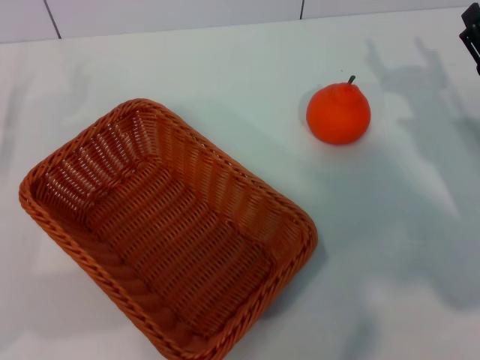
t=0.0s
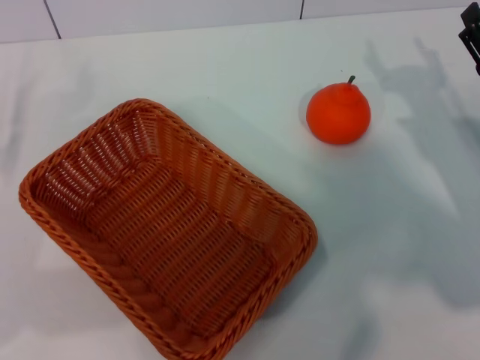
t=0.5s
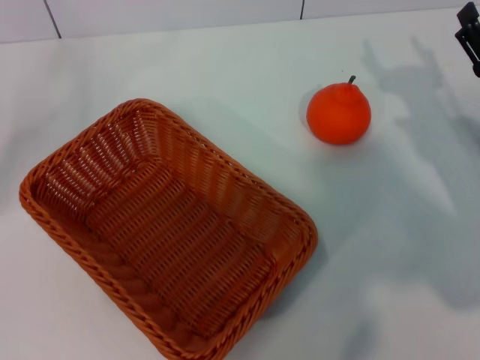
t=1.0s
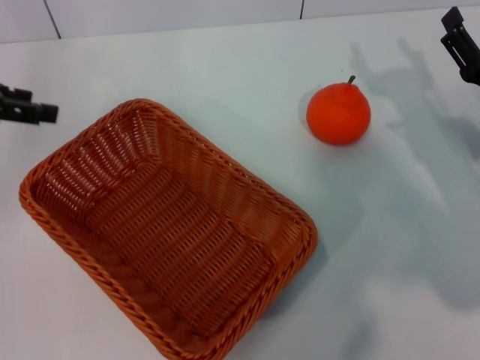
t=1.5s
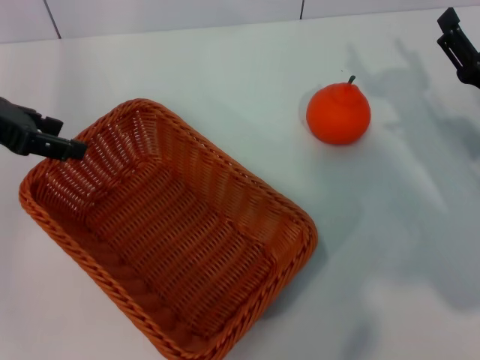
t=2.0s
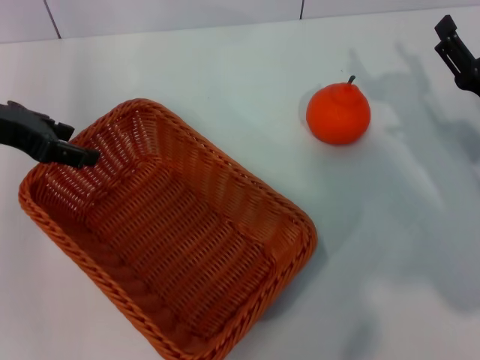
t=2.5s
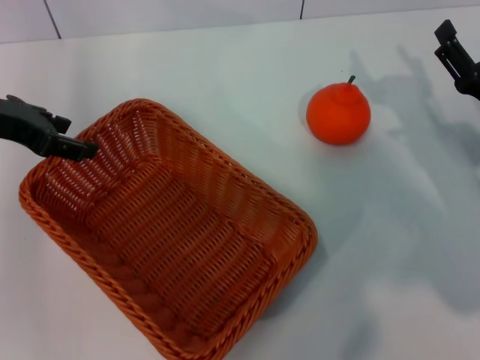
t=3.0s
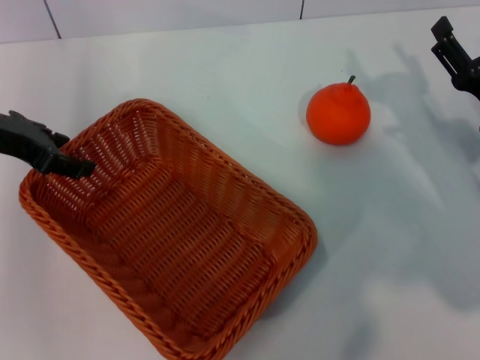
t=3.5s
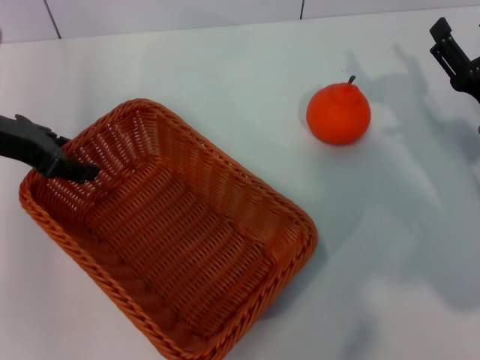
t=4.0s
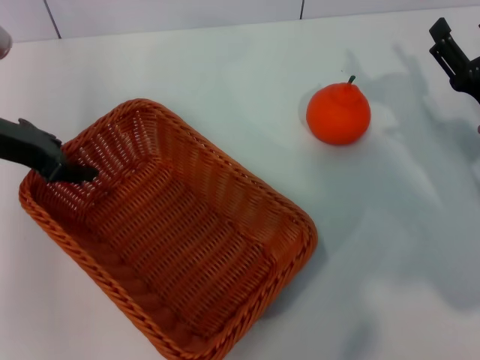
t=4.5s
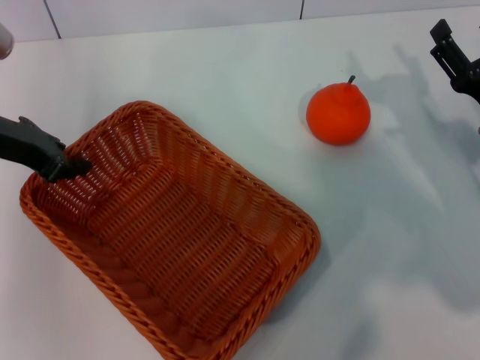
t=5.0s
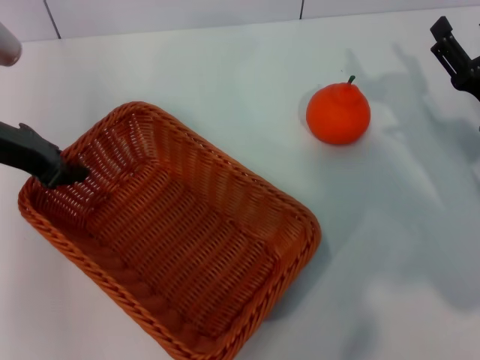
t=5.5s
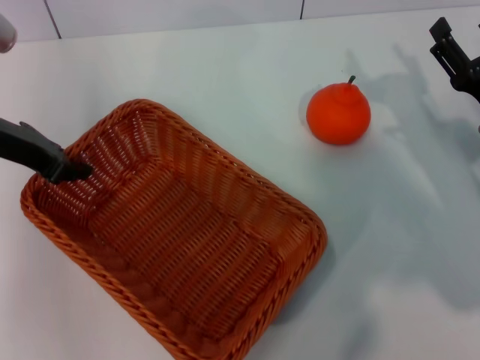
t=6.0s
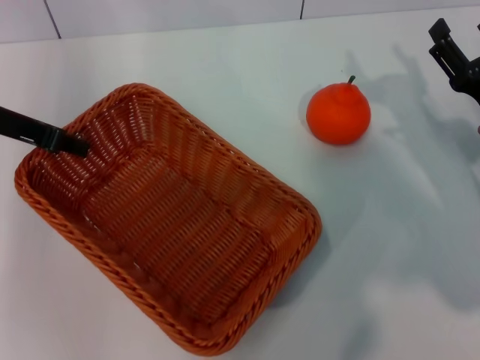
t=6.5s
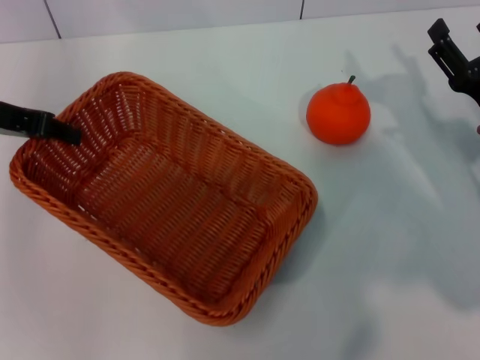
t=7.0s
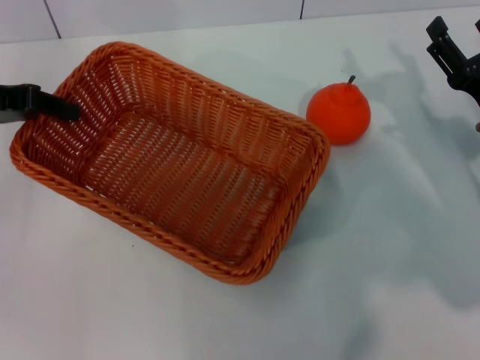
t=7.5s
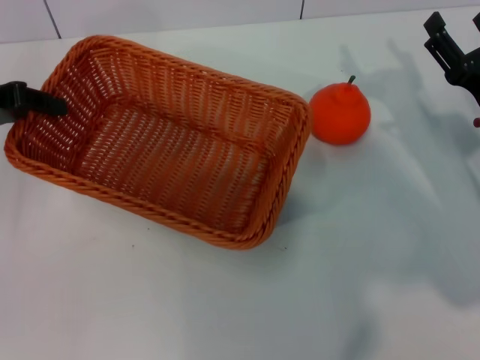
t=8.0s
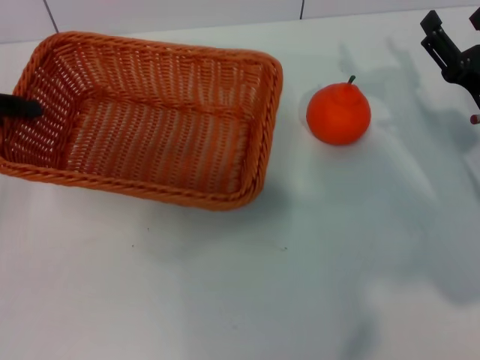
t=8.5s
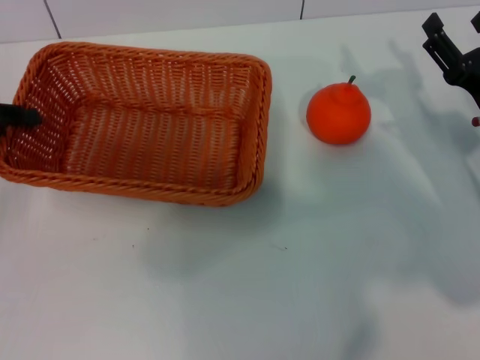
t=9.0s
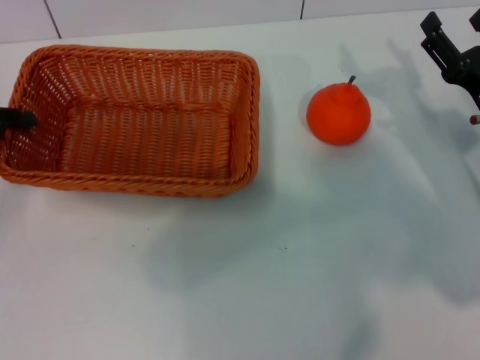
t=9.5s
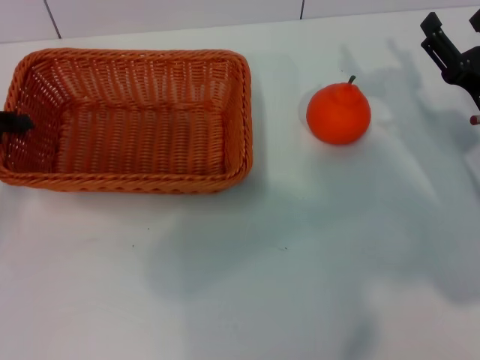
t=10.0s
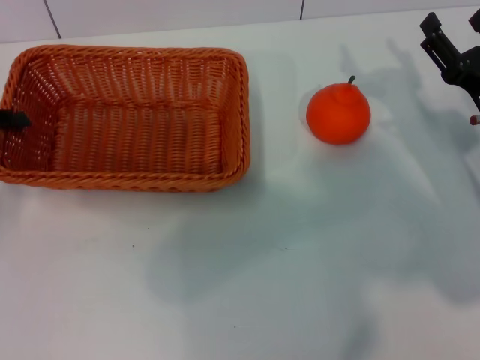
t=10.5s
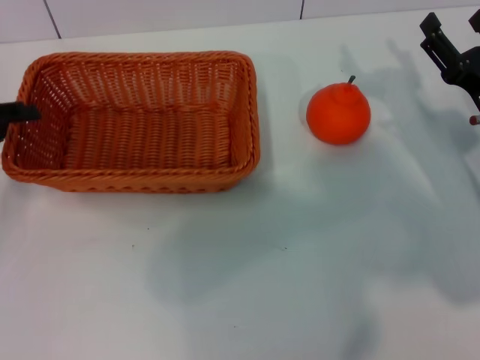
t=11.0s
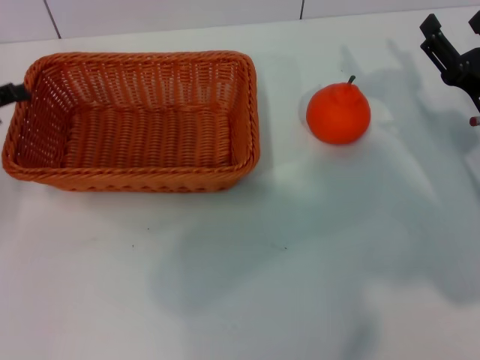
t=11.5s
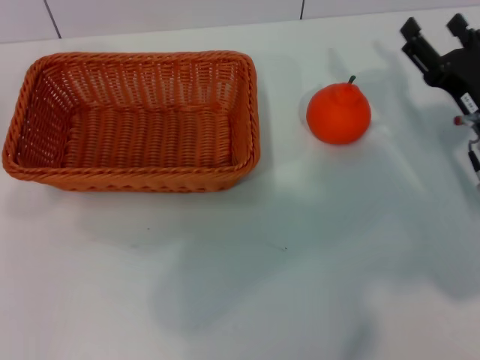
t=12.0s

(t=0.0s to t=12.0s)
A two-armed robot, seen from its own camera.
Task of the whole recording: the left gripper pick up the yellow basket and place it horizontally in the middle of the table, the right gripper pick up the orange and place it into the yellow basket.
Step, t=0.0s - t=7.0s: Pick up the light basket with the left gripper.
Step, t=7.5s - t=11.5s: Place the light basket in the center of view with the left gripper.
t=0.0s - t=2.0s: The left gripper heads upward, forward and to the right, covering approximately 15 cm.
t=2.0s - t=4.0s: The grippers make only small movements.
t=4.0s - t=6.0s: The left gripper closes its fingers.
t=6.0s - t=8.0s: The left gripper moves to the left, about 5 cm.
t=8.0s - t=10.0s: The left gripper shifts about 5 cm downward.
t=10.0s - t=12.0s: The left gripper opens.

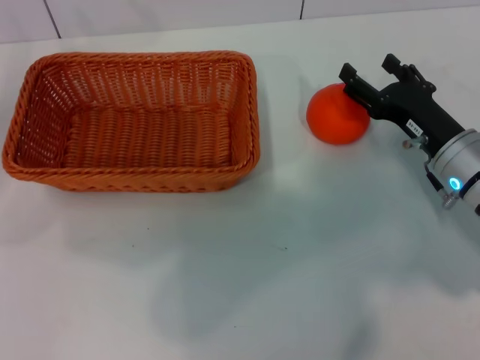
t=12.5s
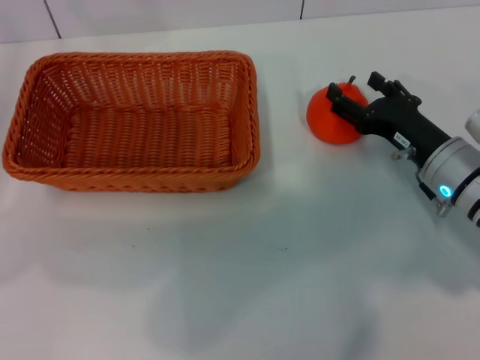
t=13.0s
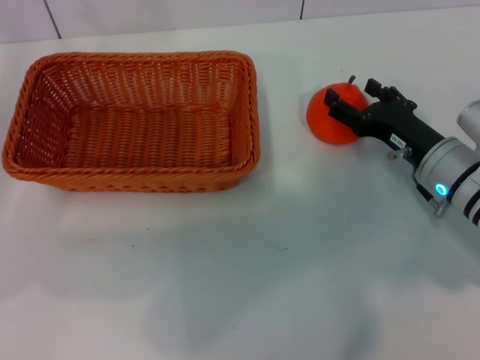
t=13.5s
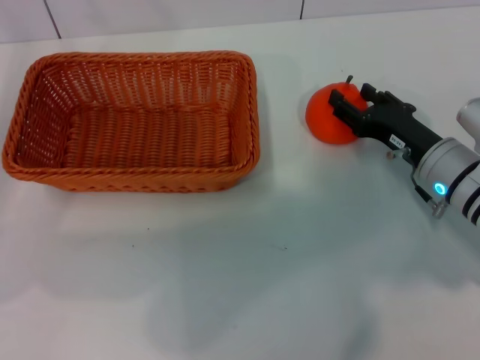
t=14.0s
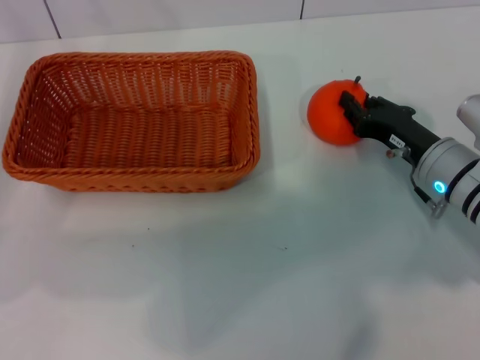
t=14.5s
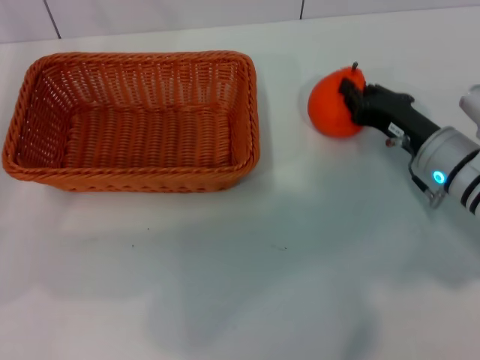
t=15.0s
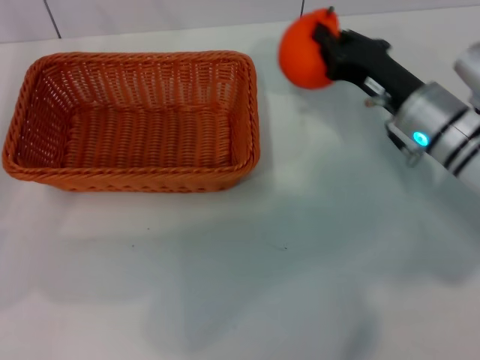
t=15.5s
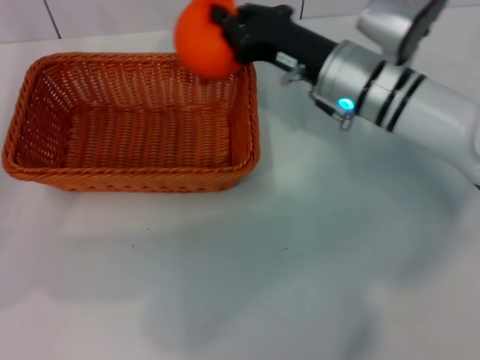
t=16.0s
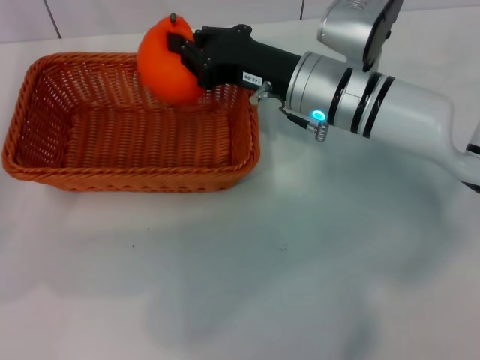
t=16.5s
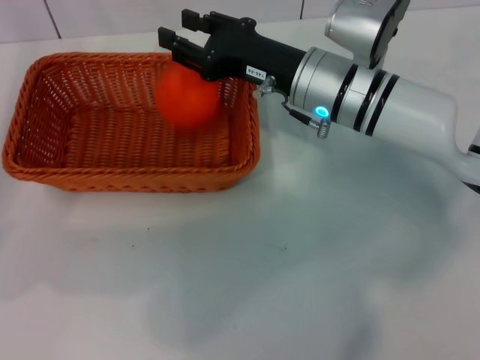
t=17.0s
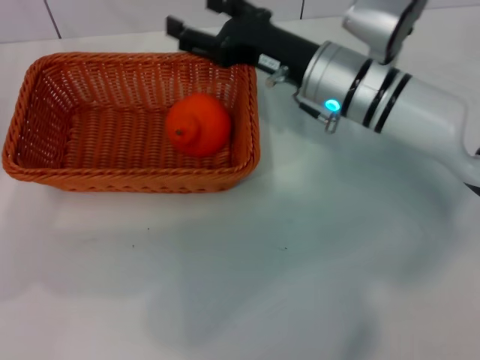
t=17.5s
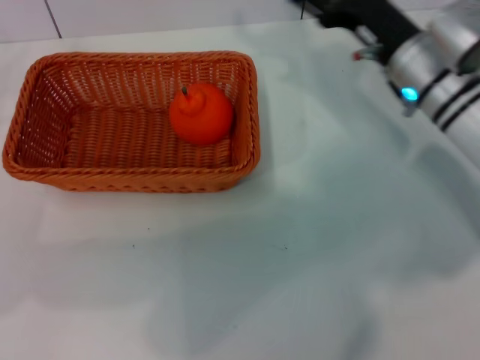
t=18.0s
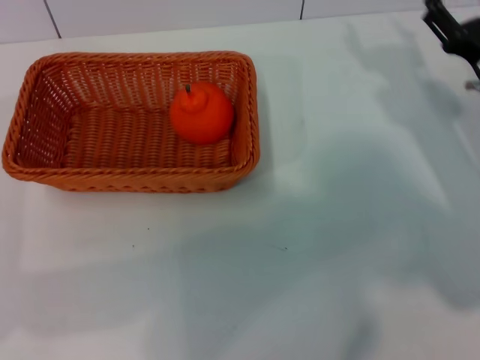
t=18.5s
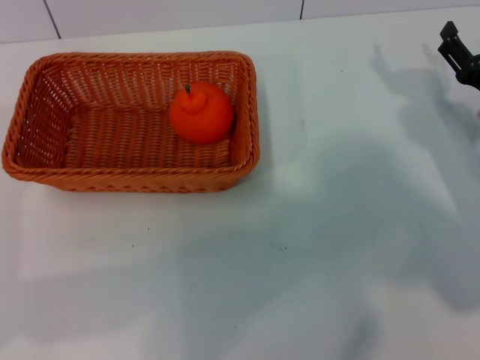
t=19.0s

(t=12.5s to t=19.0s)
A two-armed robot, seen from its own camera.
Task of the whole recording: the left gripper pick up the yellow basket and place it horizontally in the middle of the table, the right gripper pick up the orange and place it into the yellow basket.
Step, t=12.5s - t=15.0s: Pick up the orange with the right gripper.
Step, t=15.5s - t=16.5s: Place the orange into the light basket with the right gripper.
t=12.5s - t=14.5s: The right gripper closes.
t=14.5s - t=17.0s: The right gripper goes some 15 cm to the left, upward and forward.
t=17.0s - t=19.0s: The left gripper shifts approximately 5 cm downward. Meanwhile the right gripper goes approximately 20 cm to the right, and opens.
